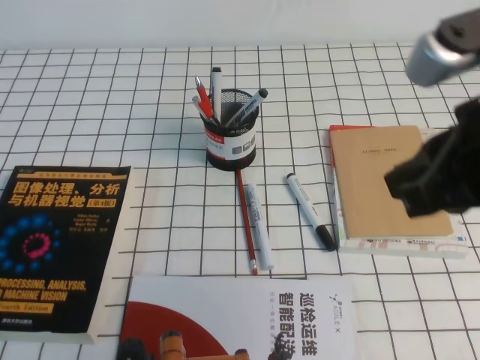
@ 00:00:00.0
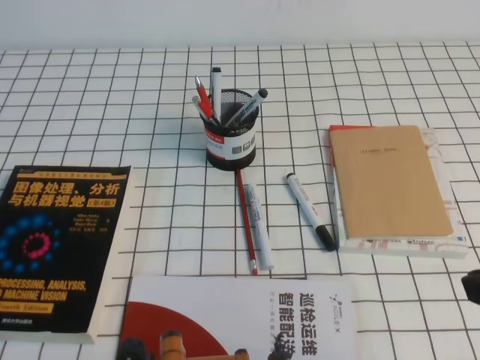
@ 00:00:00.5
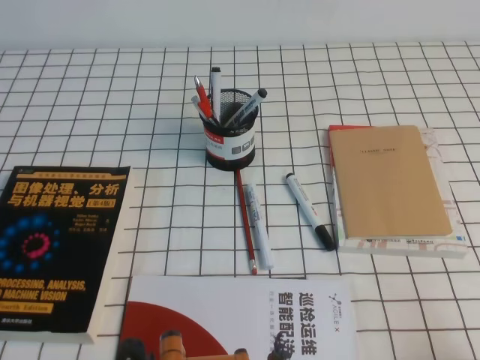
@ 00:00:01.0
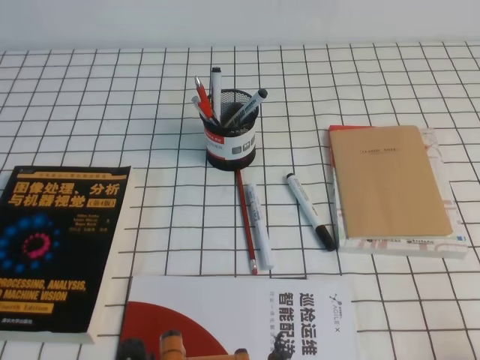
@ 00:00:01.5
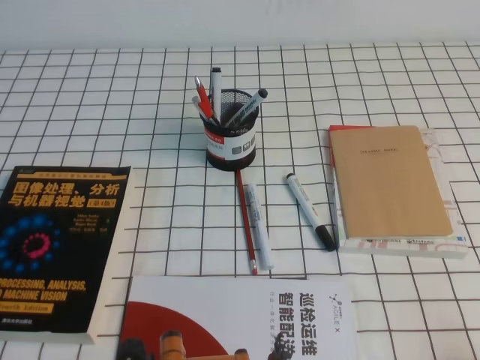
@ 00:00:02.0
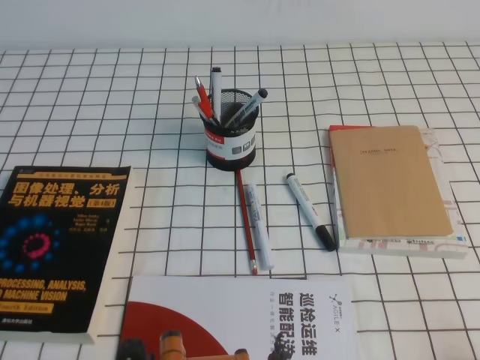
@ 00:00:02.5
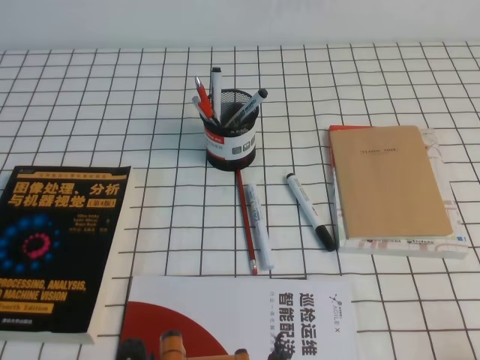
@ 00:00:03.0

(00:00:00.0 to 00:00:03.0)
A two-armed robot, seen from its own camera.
Step, 00:00:00.0 - 00:00:03.0: Pick up the pen from the pen holder.
00:00:00.0 - 00:00:01.5: The right gripper travels downward, to the right and backward by approximately 30 cm.
